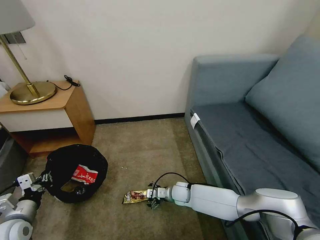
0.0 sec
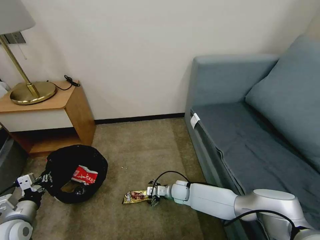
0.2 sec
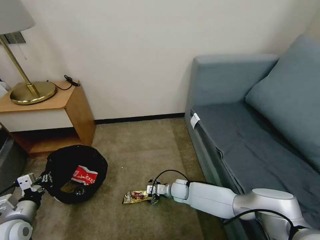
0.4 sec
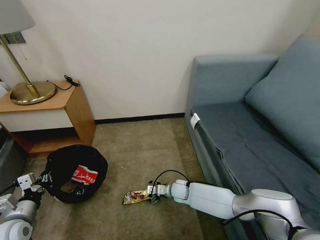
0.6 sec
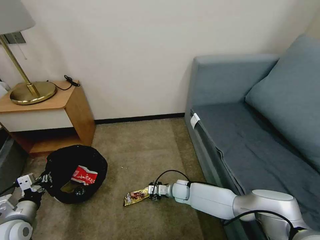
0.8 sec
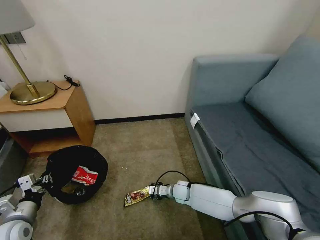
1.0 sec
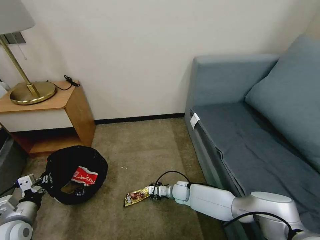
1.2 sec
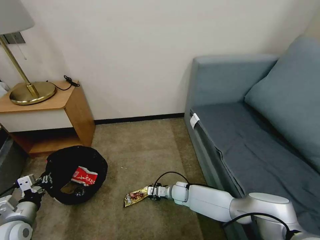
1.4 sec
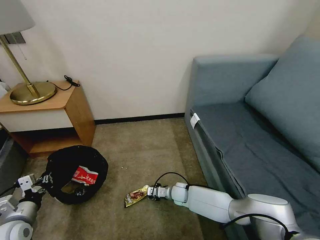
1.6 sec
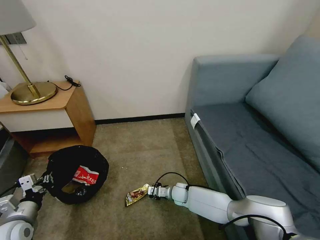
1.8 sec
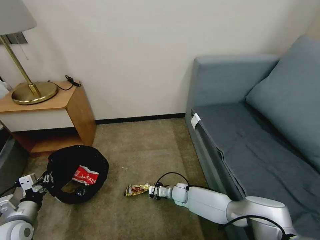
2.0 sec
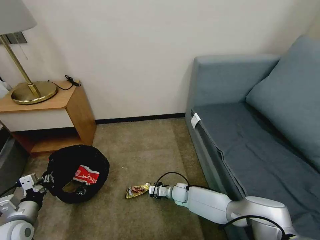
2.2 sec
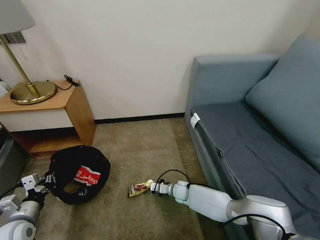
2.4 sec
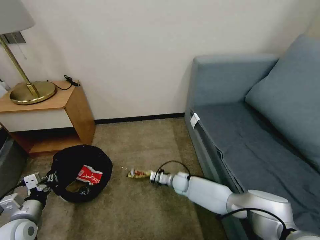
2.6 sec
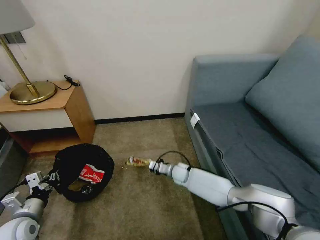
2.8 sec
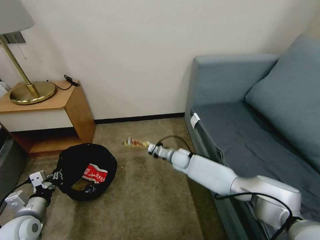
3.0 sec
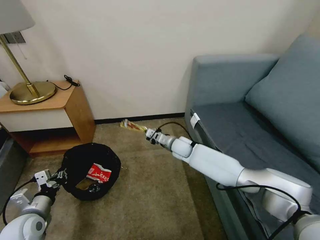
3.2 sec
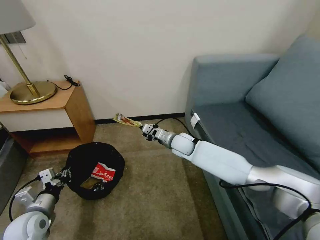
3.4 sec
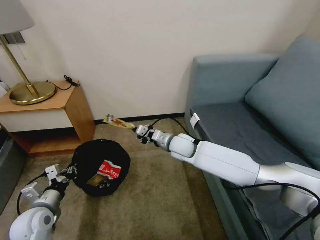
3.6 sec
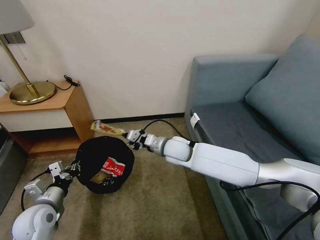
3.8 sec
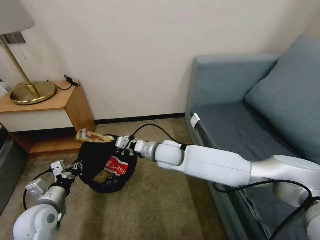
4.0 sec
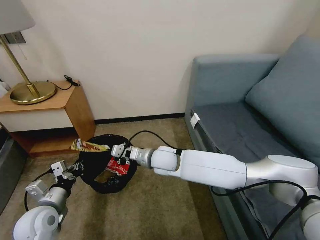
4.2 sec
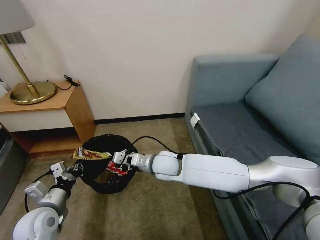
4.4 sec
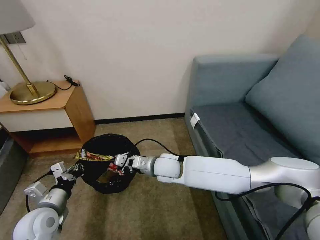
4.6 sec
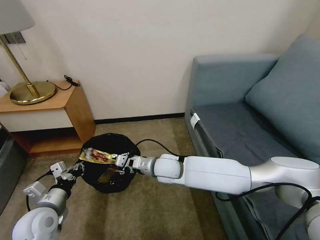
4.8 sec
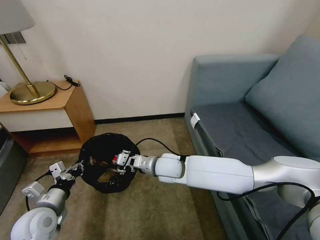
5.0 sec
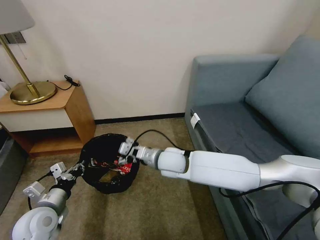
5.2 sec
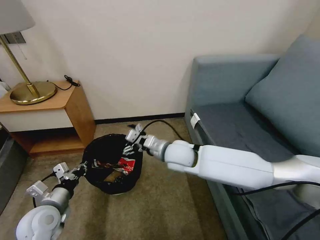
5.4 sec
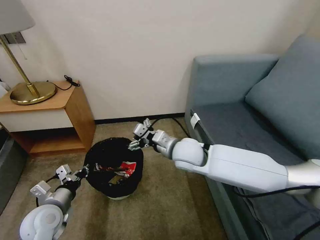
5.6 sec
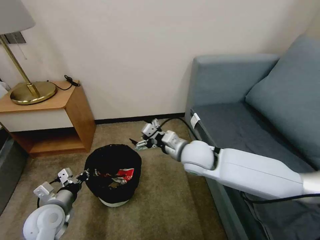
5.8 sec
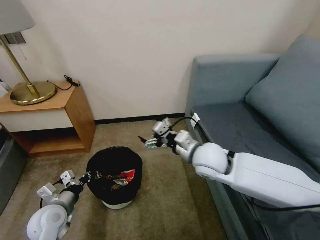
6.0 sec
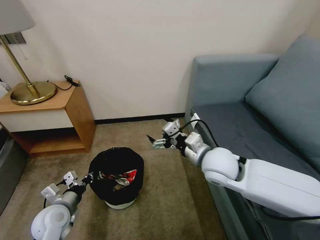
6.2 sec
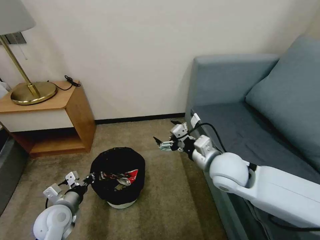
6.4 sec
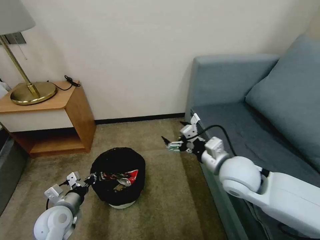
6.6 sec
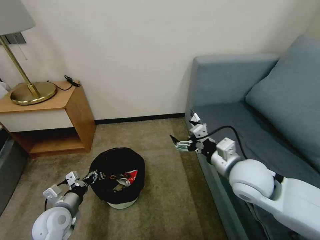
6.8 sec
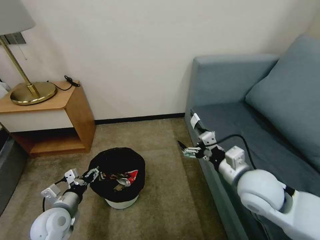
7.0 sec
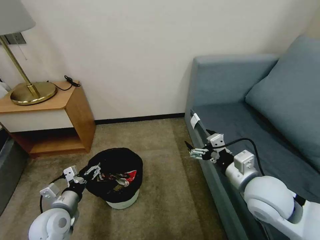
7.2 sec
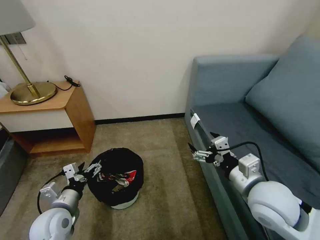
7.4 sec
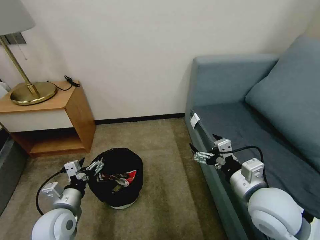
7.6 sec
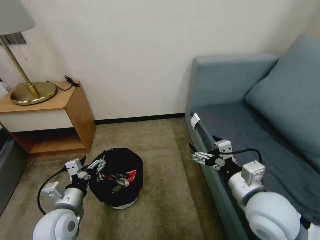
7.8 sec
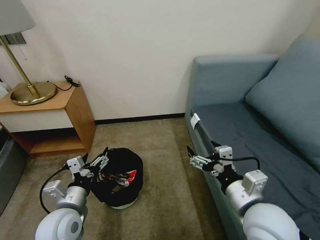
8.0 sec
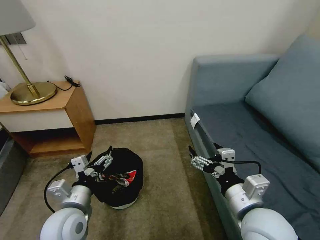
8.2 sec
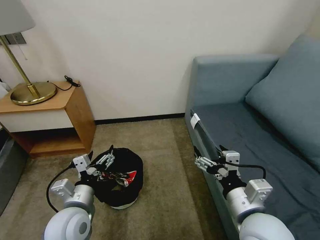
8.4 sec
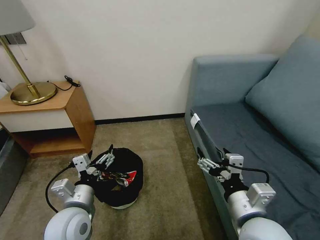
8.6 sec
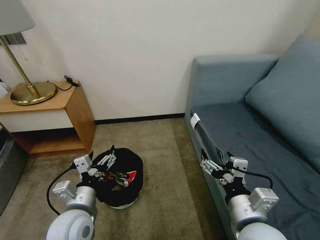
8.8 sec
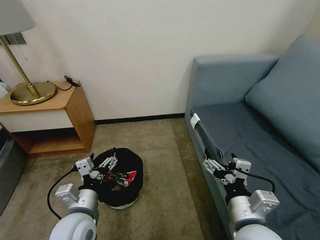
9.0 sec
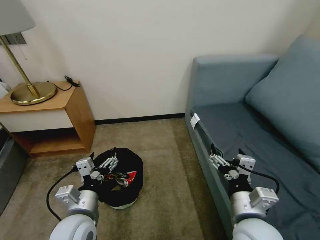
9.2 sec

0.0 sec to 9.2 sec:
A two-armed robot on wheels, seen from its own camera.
Task of the whole recording: Pick up the trash bin, then pick up the garbage on the floor and place it into the trash bin.
0.0 sec to 1.6 sec: The right gripper closes its fingers.
1.6 sec to 3.0 sec: The right gripper heads upward and forward, covering approximately 15 cm.
3.0 sec to 4.6 sec: The left gripper shifts roughly 5 cm to the right; the right gripper travels upward, backward and to the left by approximately 20 cm.
4.6 sec to 6.2 sec: The right gripper moves to the right and upward, roughly 15 cm, and opens its fingers.
6.2 sec to 7.6 sec: The right gripper goes roughly 15 cm backward and to the right. The left gripper changes place by roughly 5 cm, and opens.
7.6 sec to 9.2 sec: The right gripper moves backward, approximately 5 cm. The left gripper shifts some 10 cm to the right.

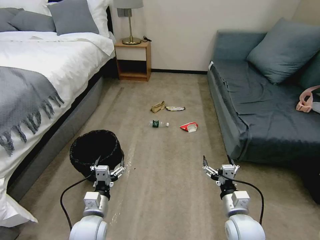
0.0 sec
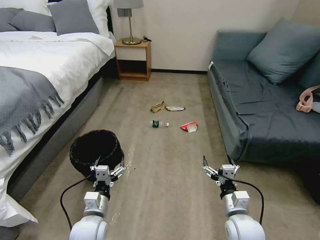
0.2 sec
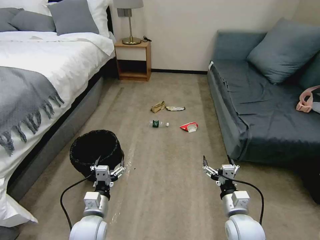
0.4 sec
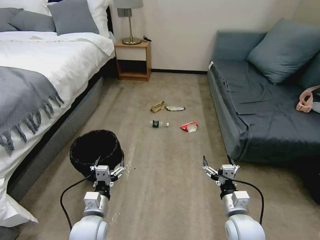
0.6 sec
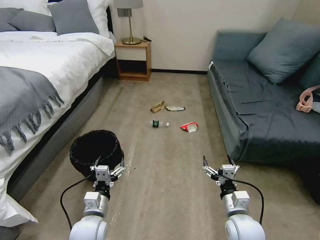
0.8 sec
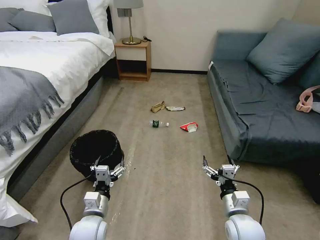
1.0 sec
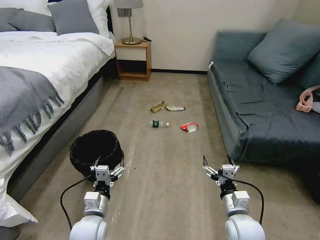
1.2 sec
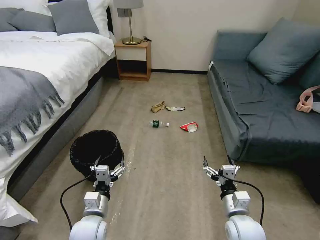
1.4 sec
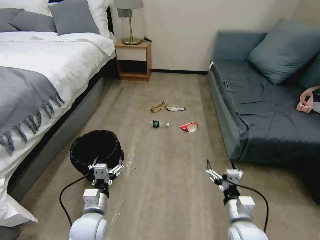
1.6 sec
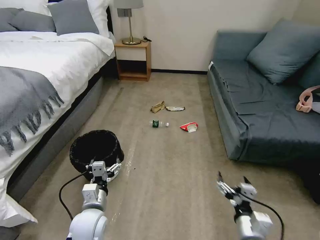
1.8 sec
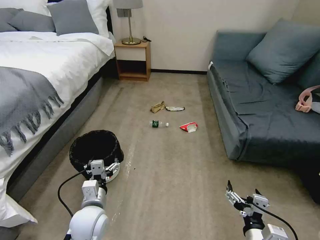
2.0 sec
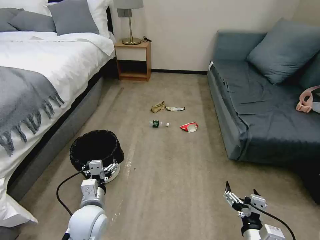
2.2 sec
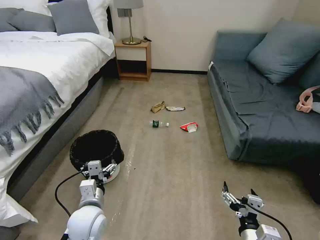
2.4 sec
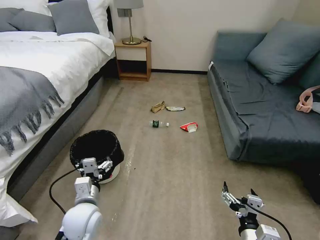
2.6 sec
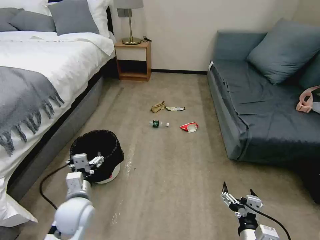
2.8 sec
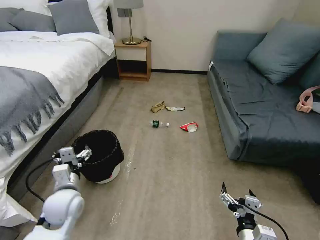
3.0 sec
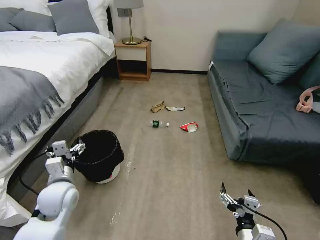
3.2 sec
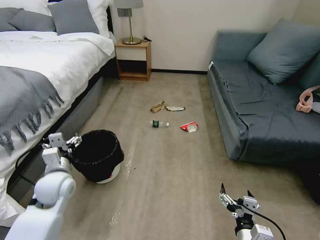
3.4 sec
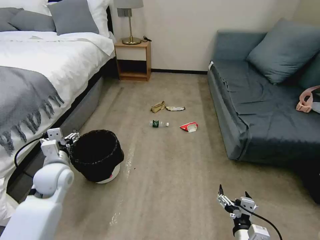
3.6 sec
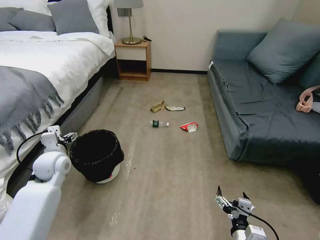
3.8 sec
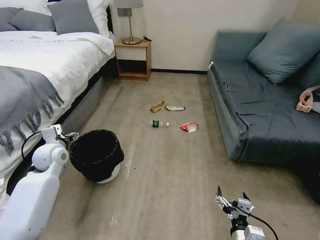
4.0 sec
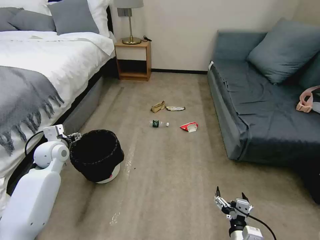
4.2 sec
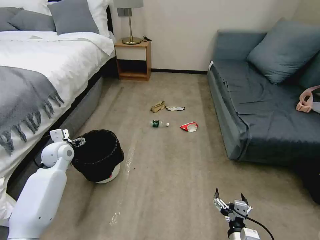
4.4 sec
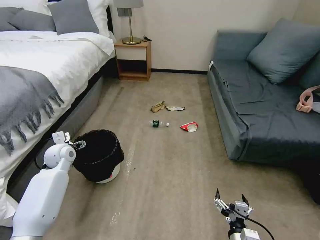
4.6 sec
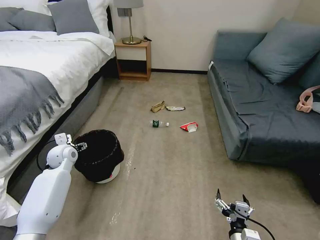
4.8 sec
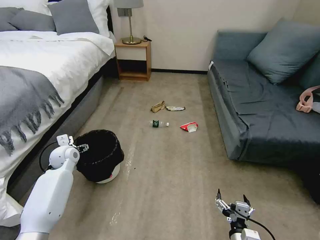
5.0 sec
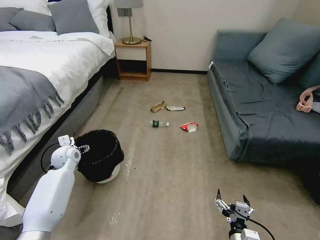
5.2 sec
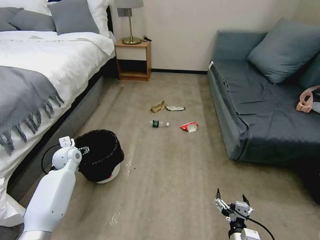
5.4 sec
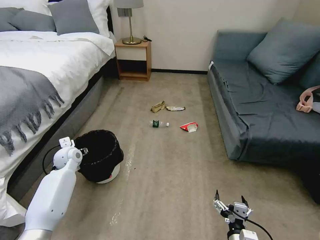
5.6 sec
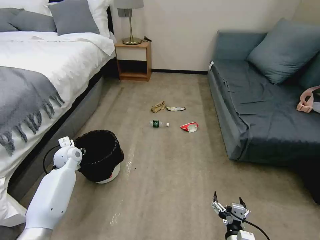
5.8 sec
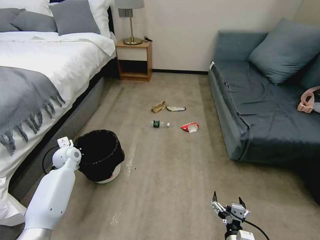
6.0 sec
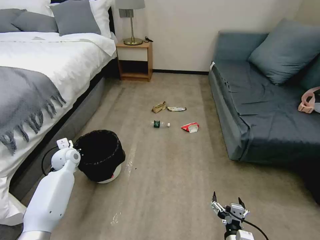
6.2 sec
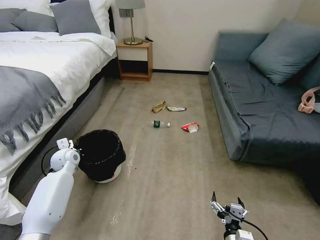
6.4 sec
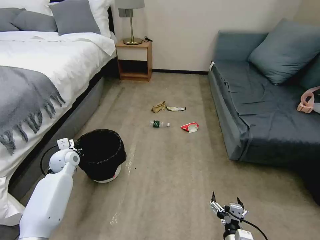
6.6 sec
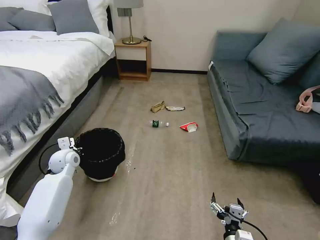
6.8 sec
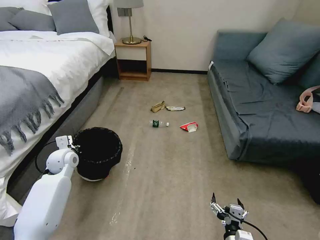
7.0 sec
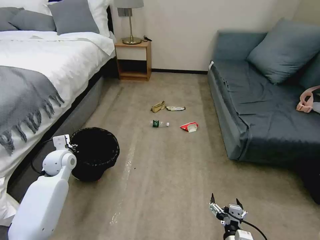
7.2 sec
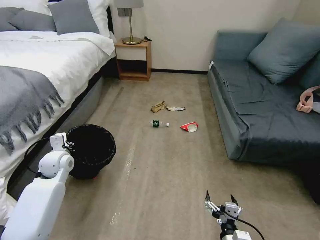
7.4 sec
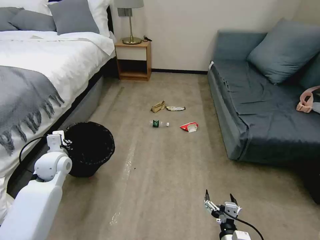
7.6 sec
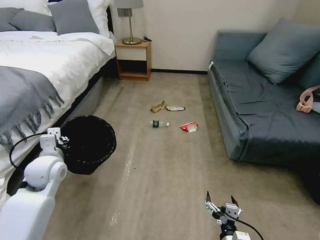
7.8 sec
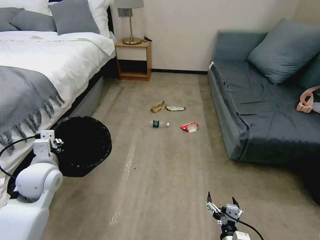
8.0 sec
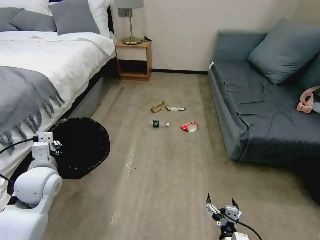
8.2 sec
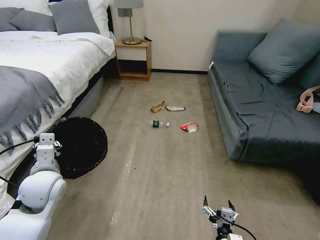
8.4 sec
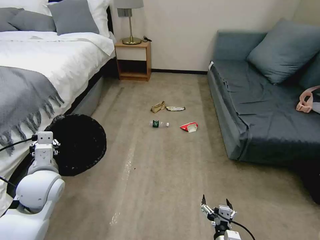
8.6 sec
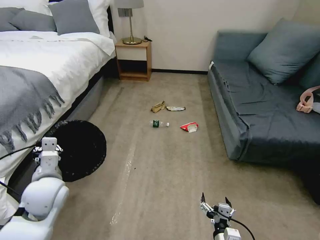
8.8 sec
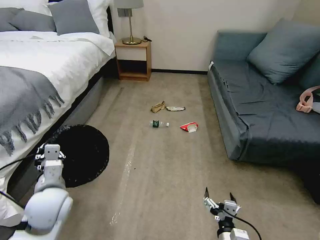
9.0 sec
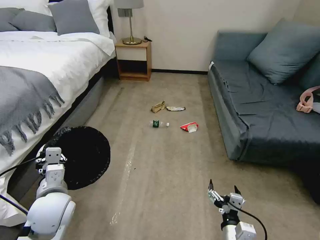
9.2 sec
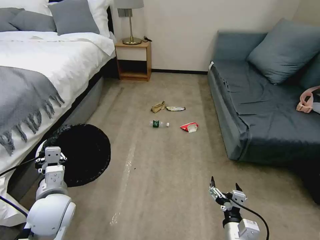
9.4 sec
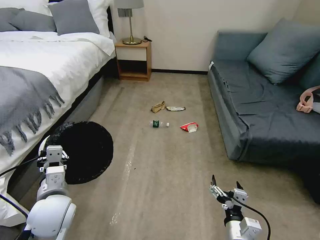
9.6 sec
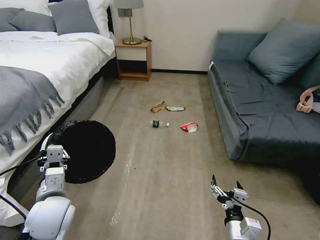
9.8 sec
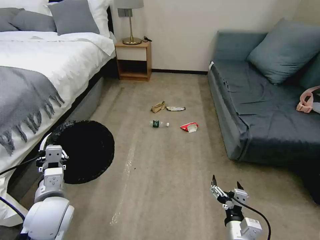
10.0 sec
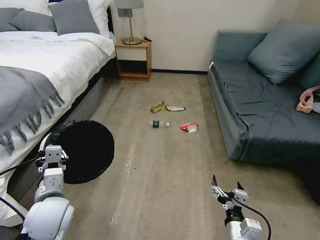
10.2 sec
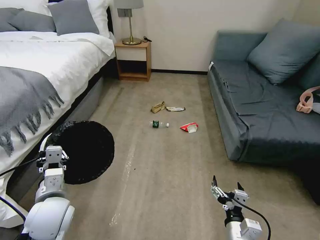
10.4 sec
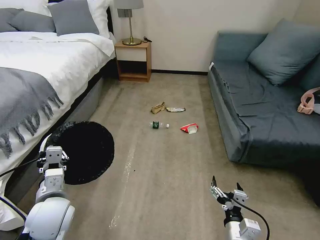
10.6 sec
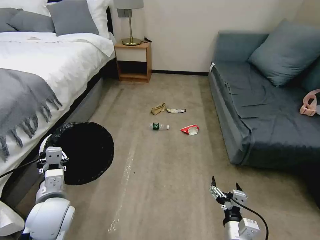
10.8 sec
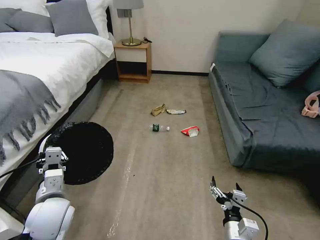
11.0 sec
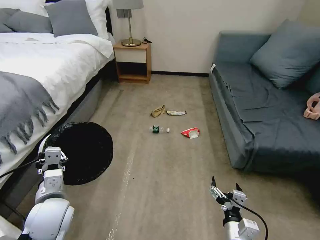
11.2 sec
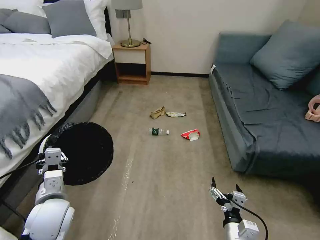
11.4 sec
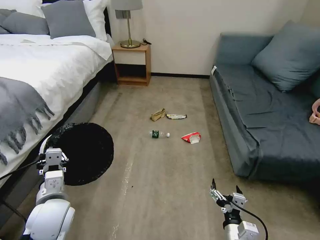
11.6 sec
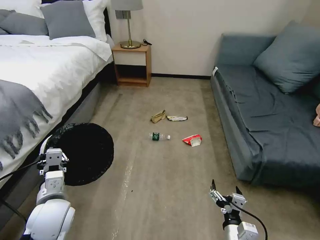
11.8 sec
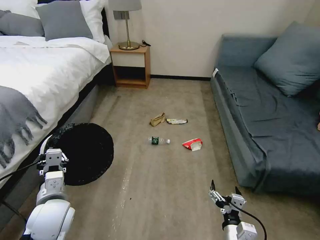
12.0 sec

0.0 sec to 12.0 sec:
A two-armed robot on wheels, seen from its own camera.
Task of the whole recording: Pick up the trash bin, then pick up the garbage on the floor and place it into the trash bin.
1.6 sec to 3.0 sec: The right gripper is displaced backward by some 5 cm. Meanwhile the left gripper heads to the left and upward, covering approximately 10 cm.
3.0 sec to 4.4 sec: The left gripper travels forward and to the left by about 20 cm, while the right gripper moves some 5 cm.
4.4 sec to 6.0 sec: The left gripper shifts roughly 5 cm downward, and closes.
6.0 sec to 7.6 sec: The left gripper moves backward and upward, approximately 10 cm.
7.6 sec to 9.0 sec: The left gripper moves backward and to the right, some 15 cm.
9.0 sec to 10.4 sec: The grippers stay close to where they were, moving slightly.

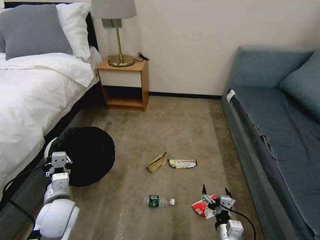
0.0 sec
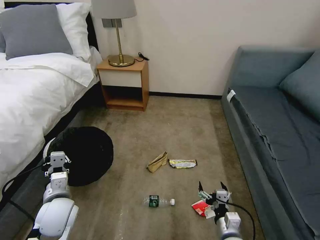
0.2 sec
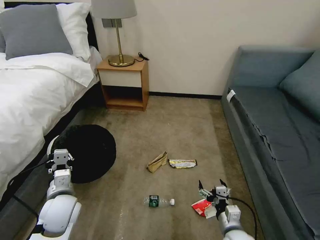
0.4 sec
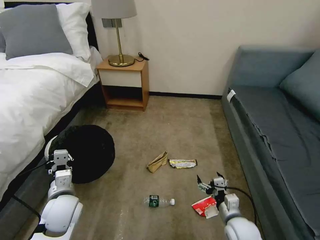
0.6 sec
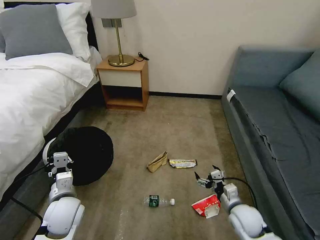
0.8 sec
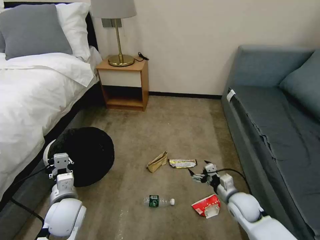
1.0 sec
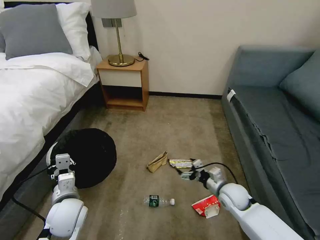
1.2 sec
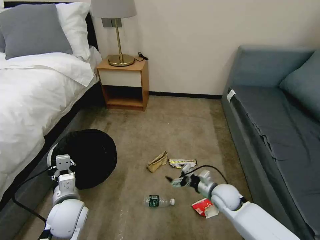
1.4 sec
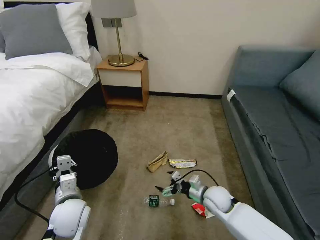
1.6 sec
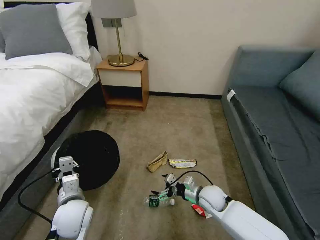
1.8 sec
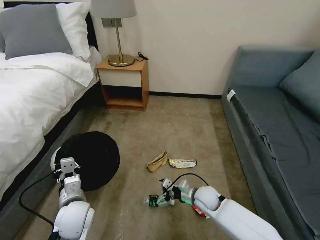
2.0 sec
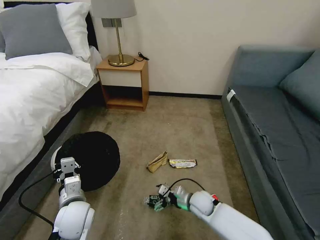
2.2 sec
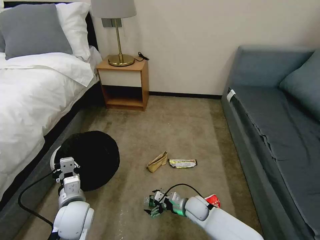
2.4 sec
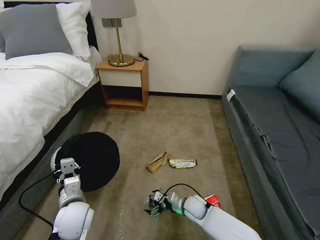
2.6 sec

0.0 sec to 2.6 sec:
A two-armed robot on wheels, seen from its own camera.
Task of the whole recording: Pick up the trash bin, then pick up the garbage on the floor and place it into the trash bin.
0.0 sec to 1.2 sec: The right gripper shifts approximately 20 cm forward.
1.2 sec to 2.6 sec: The right gripper moves to the left and downward, approximately 15 cm.
